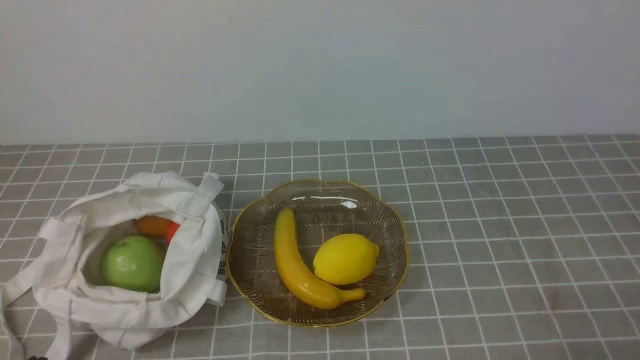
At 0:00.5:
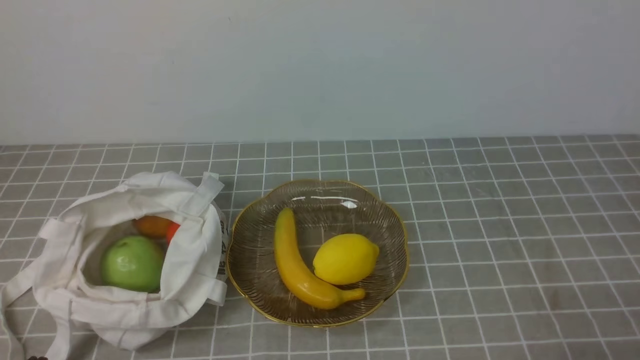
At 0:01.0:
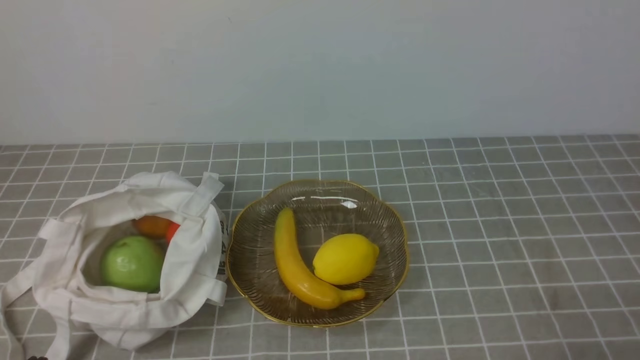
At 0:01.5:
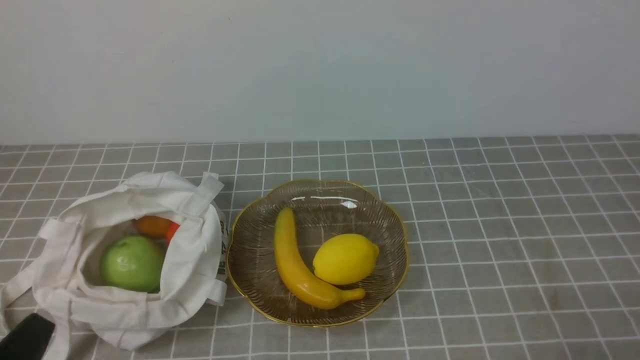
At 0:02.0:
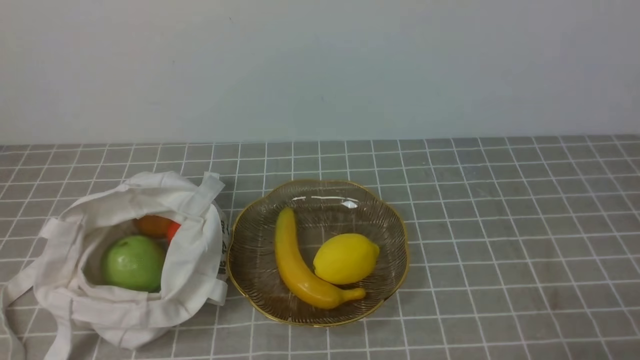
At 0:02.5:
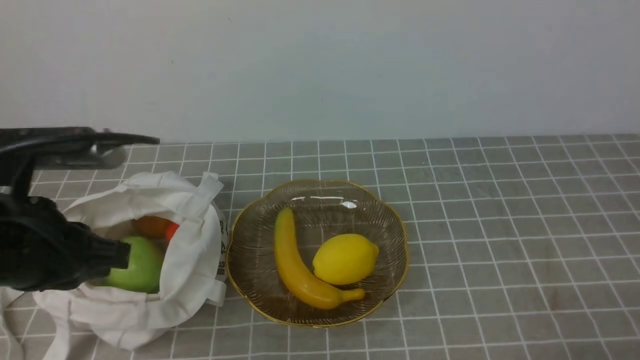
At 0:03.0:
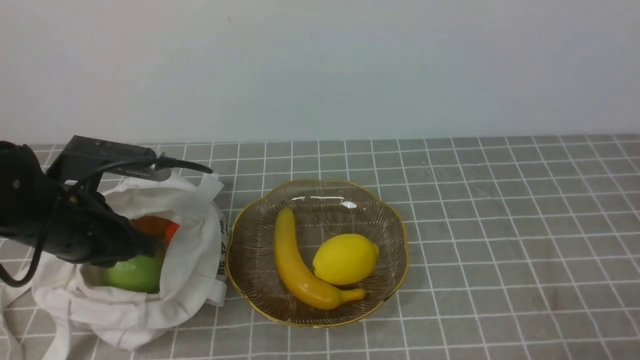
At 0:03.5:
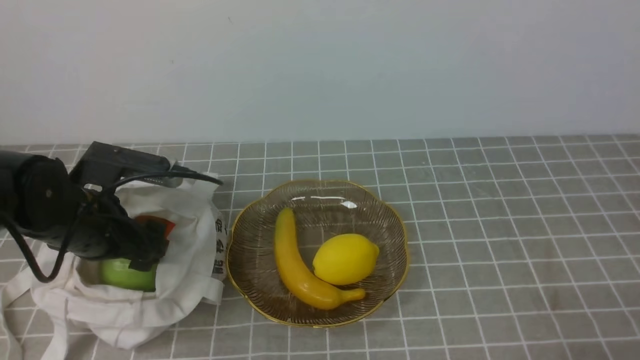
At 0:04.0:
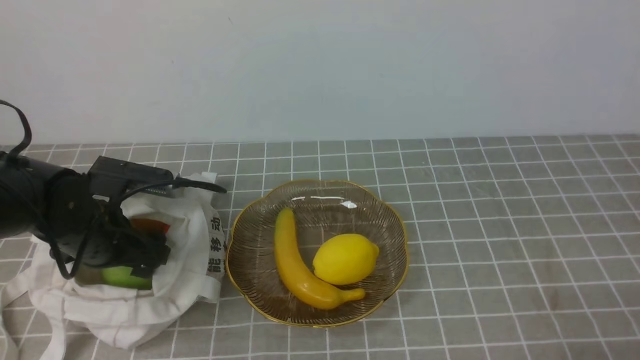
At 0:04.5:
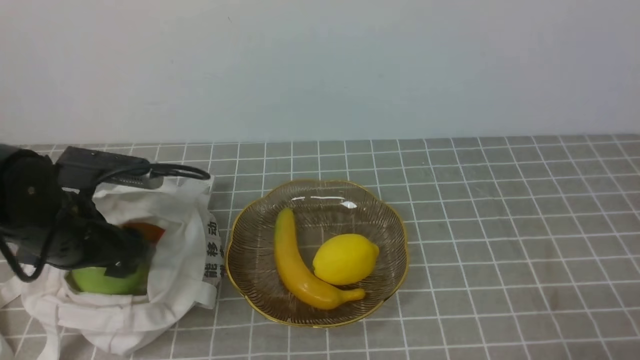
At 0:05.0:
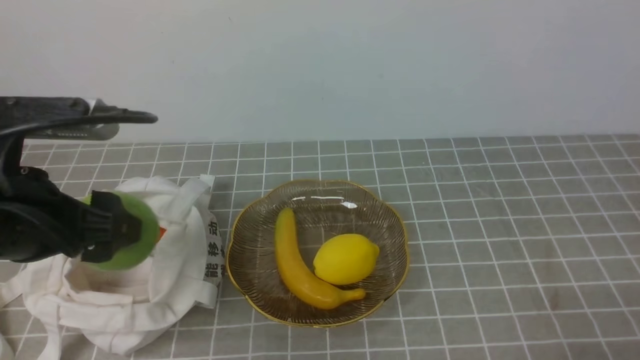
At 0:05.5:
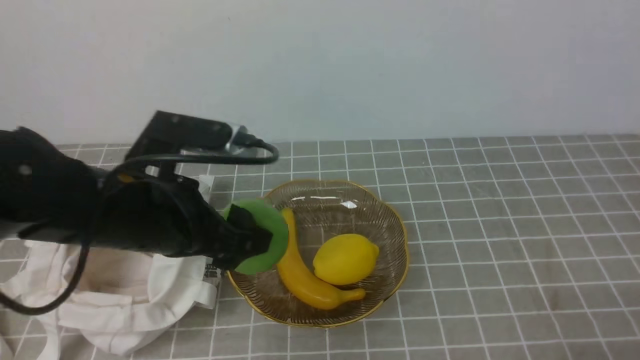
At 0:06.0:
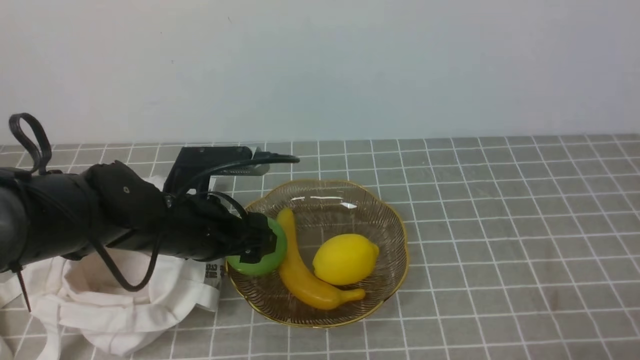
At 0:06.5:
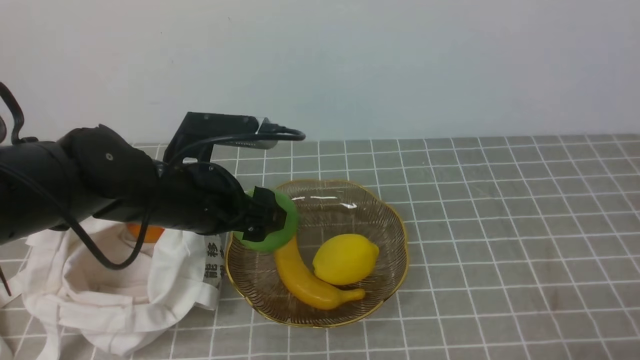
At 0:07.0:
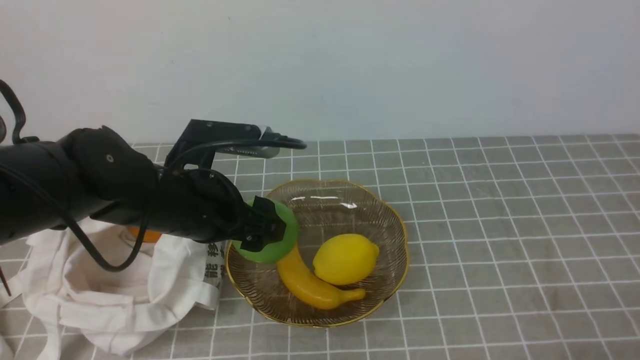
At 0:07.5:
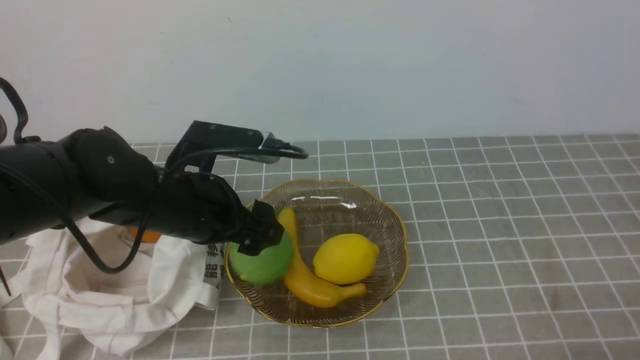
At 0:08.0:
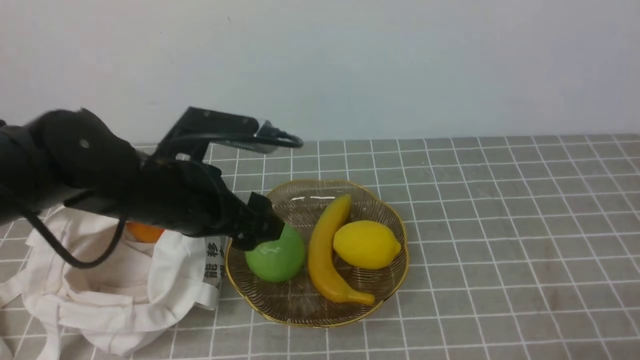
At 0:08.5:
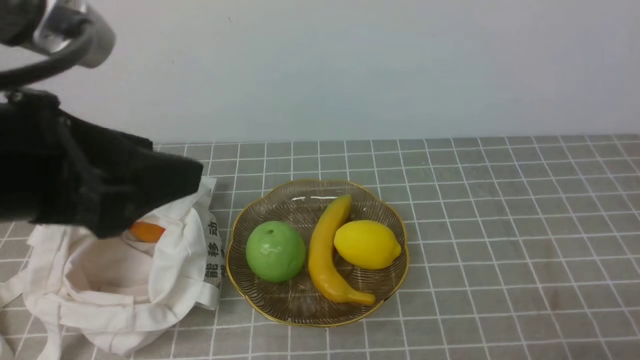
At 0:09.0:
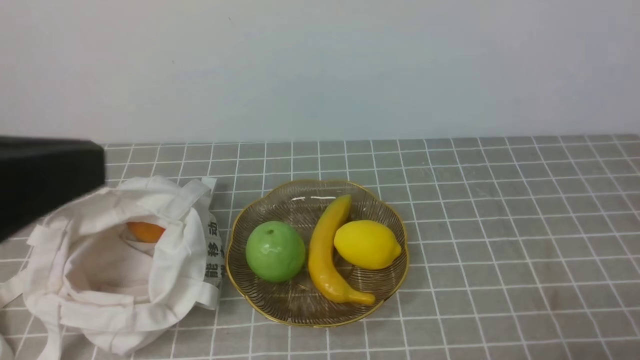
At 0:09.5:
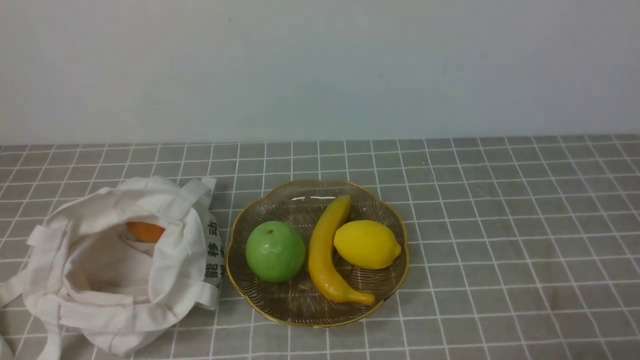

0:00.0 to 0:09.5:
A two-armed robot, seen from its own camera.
Step, 0:00.0 to 0:04.0: use the left arm to grab an apple from the bag.
Step, 0:04.5 to 0:07.5: use the left arm to put the apple into the empty plate on the right.
0:02.0 to 0:04.0: The left gripper is displaced forward and downward by approximately 30 cm, and opens up.
0:04.0 to 0:05.5: The left gripper travels upward, to the right and backward by roughly 15 cm.
0:05.5 to 0:07.5: The left gripper shifts some 10 cm downward and forward.
0:07.5 to 0:09.5: The left gripper moves backward and upward, approximately 35 cm, and closes up.

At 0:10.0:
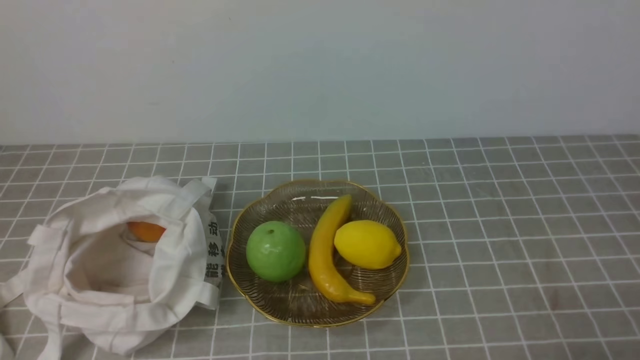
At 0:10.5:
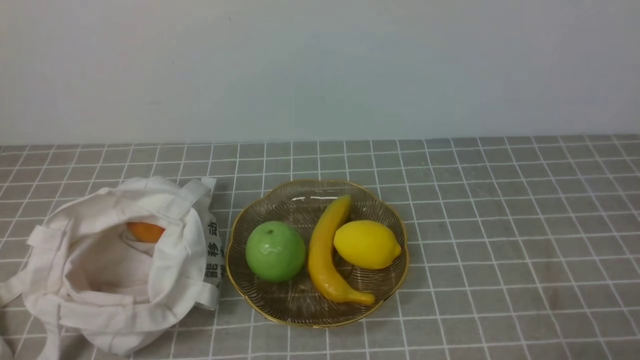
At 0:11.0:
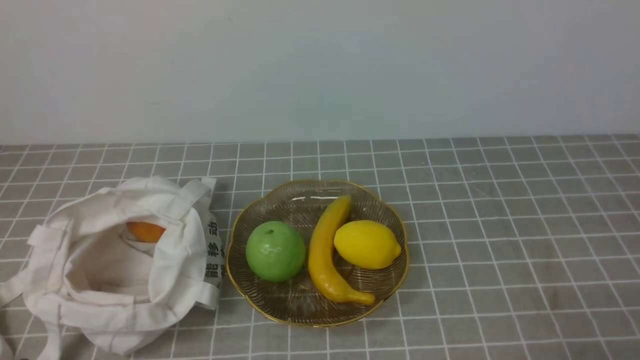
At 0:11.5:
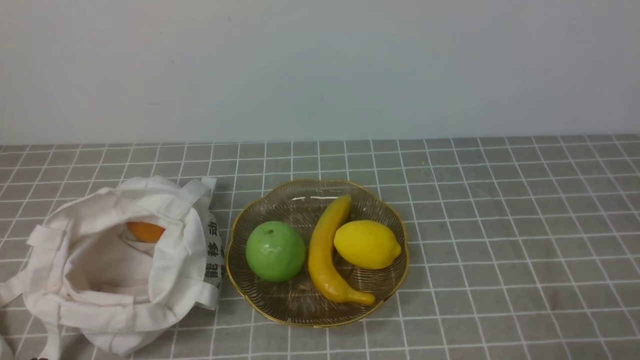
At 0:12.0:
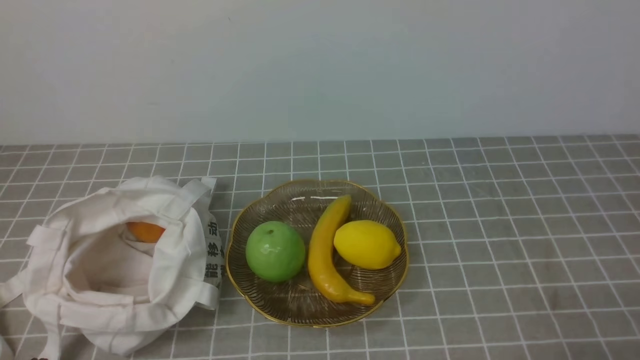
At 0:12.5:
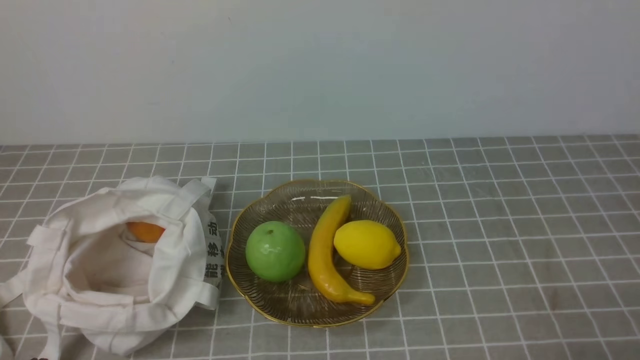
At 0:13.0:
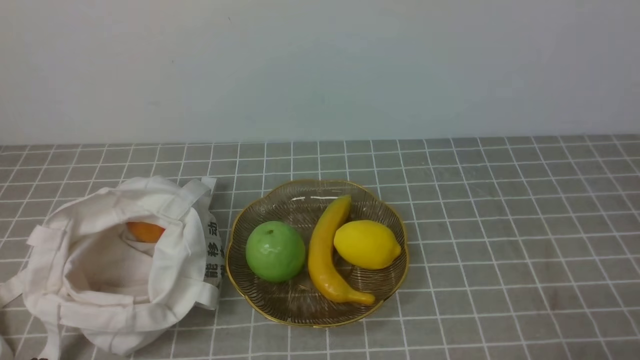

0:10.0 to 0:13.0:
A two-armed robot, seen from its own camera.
0:11.5 to 0:13.0: The two grippers keep their place.
